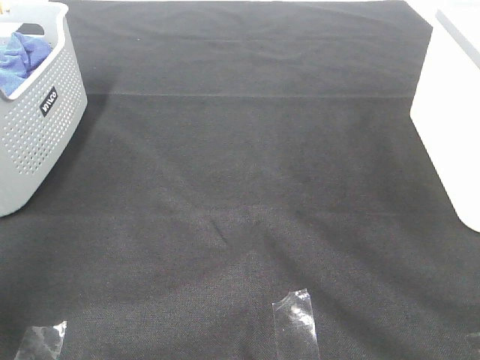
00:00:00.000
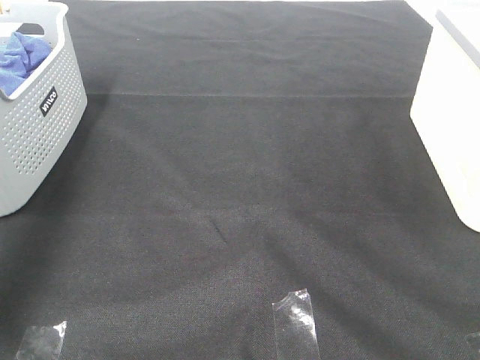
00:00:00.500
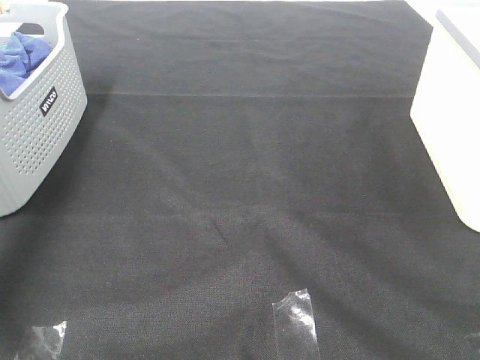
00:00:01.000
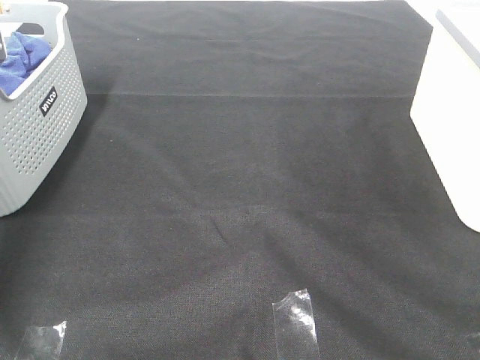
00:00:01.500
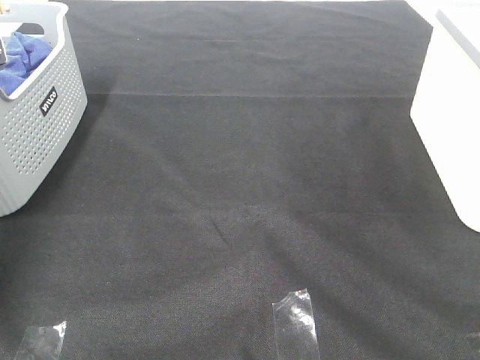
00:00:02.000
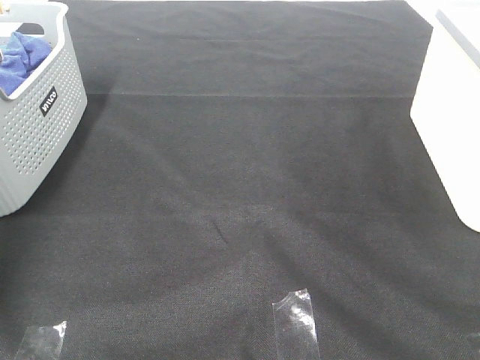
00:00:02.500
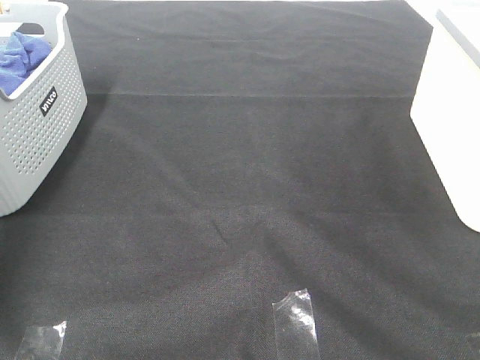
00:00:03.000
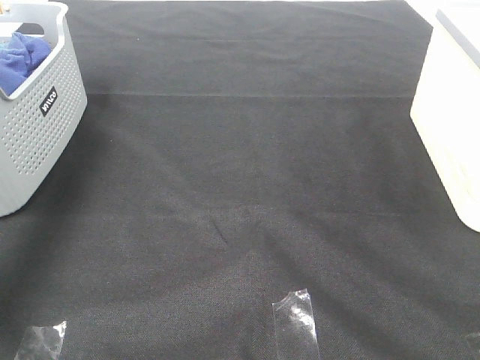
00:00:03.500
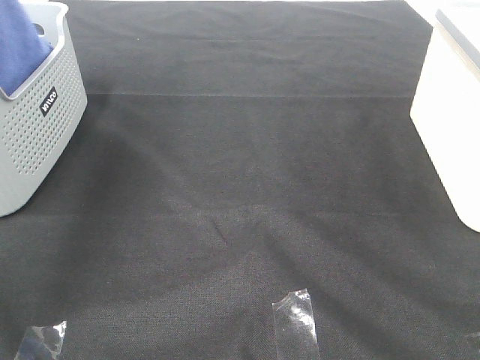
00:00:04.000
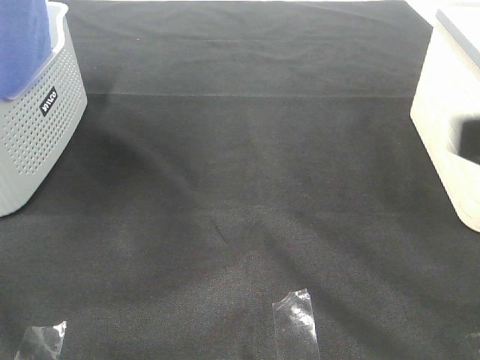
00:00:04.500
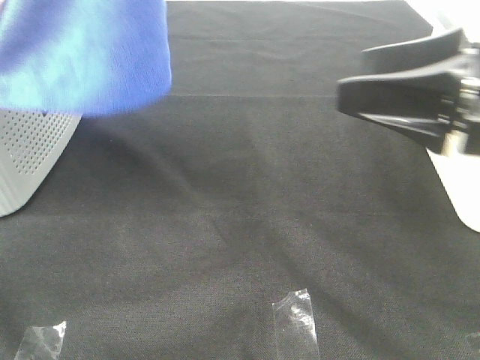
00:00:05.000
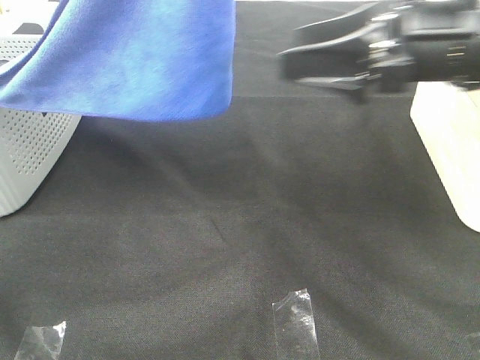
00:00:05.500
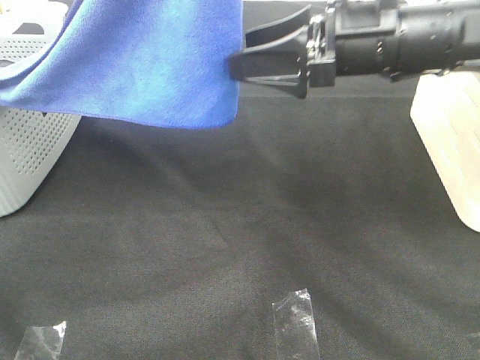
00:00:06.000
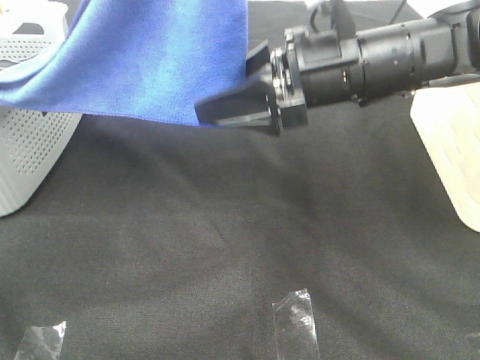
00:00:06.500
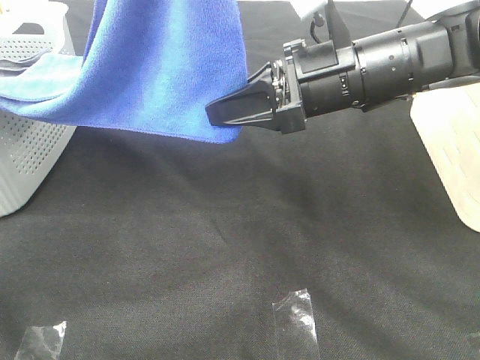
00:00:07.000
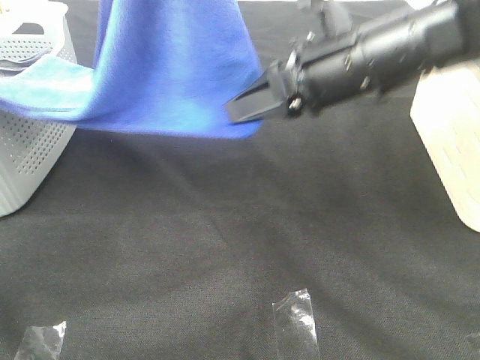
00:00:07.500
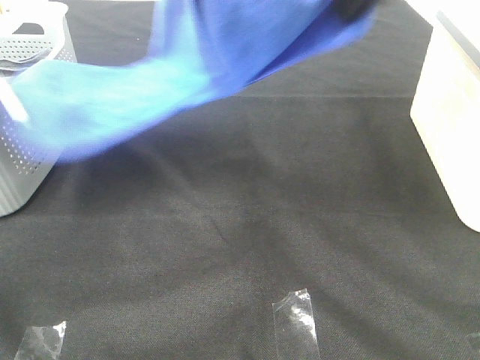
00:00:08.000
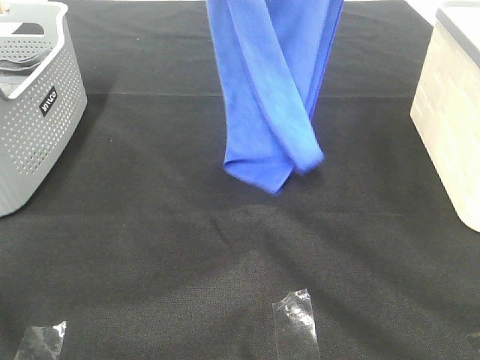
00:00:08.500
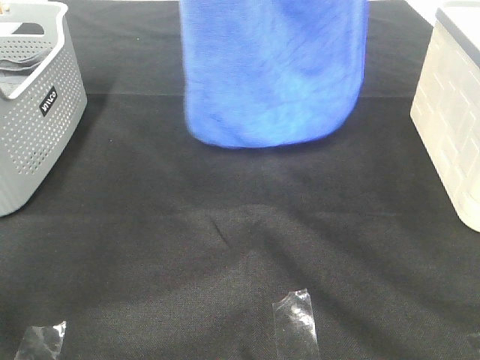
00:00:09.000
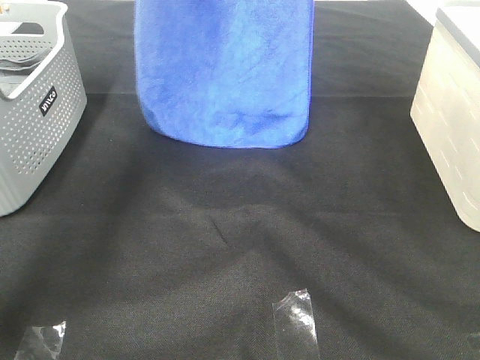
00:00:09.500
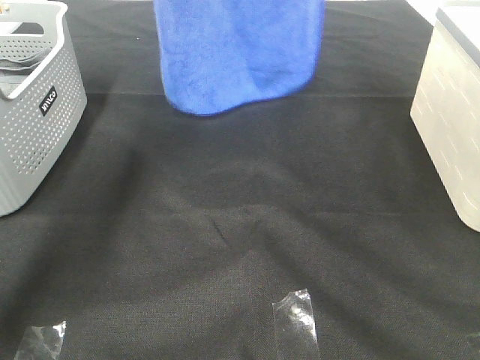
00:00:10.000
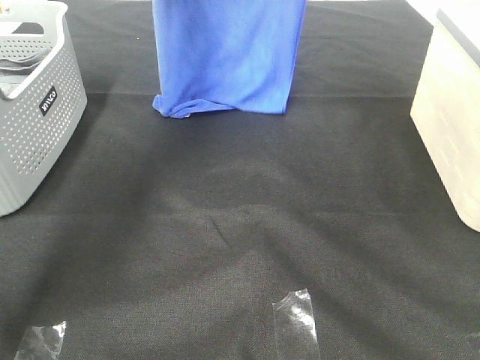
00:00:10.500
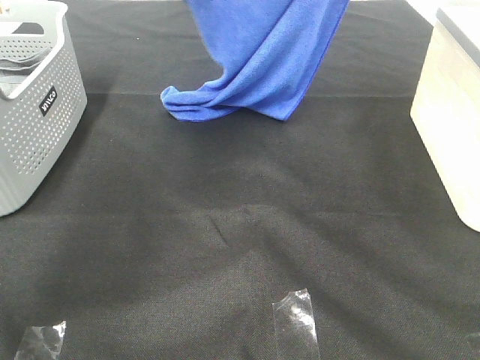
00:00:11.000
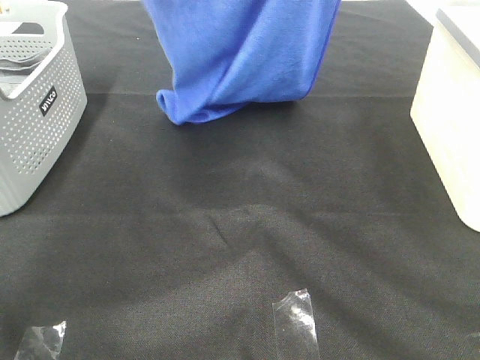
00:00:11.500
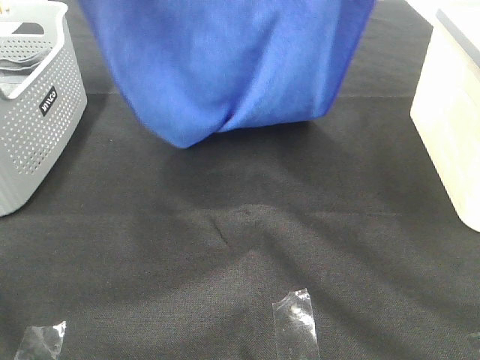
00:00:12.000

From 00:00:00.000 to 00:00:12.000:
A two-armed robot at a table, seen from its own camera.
Task of the whole recording: Remove the towel and place it.
Step, from 00:00:04.000 to 00:00:06.500: Right hand: grab a corner of the blue towel and straighten it.
Step, from 00:00:07.000 to 00:00:12.000: Left hand: spread the blue towel flat on the table.
Step, from 00:00:07.000 to 00:00:12.000: Right hand: spread the blue towel flat on the table.
From 00:00:00.000 to 00:00:02.000: The left gripper goes roughly 40 cm forward and downward, and closes up.
From 00:00:02.000 to 00:00:04.000: The left gripper heads upward, backward and to the right, covering approximately 40 cm, and closes.
From 00:00:04.000 to 00:00:06.000: The left gripper shifts approximately 20 cm to the right; the right gripper is displaced forward and to the left by some 35 cm.
From 00:00:06.000 to 00:00:08.000: The right gripper goes about 15 cm upward, and closes up.
From 00:00:08.000 to 00:00:10.000: The left gripper shifts about 25 cm forward, while the right gripper moves forward and upward, approximately 15 cm.
From 00:00:10.000 to 00:00:12.000: Both grippers move backward, about 20 cm.

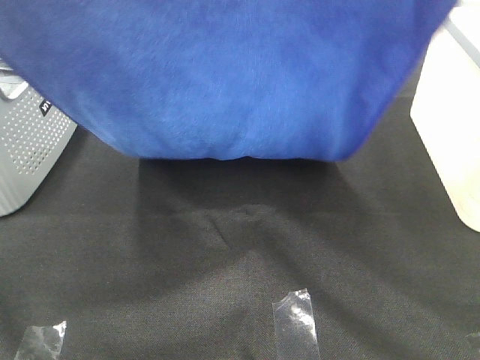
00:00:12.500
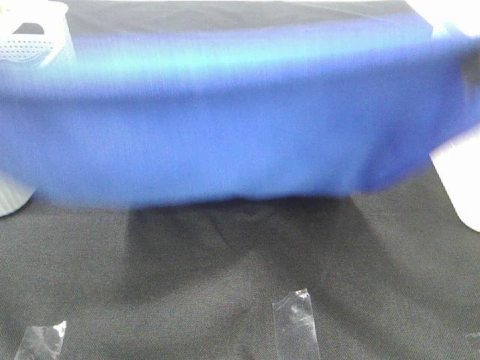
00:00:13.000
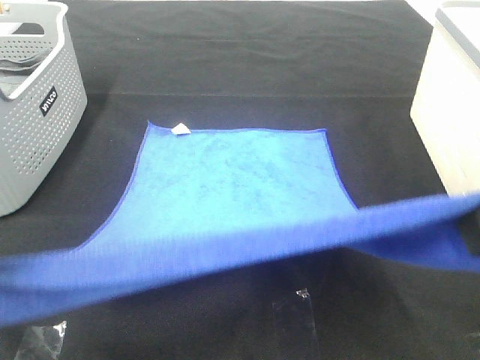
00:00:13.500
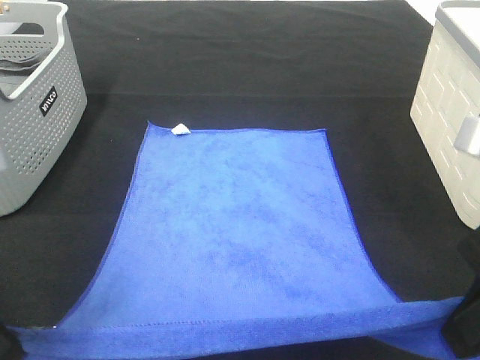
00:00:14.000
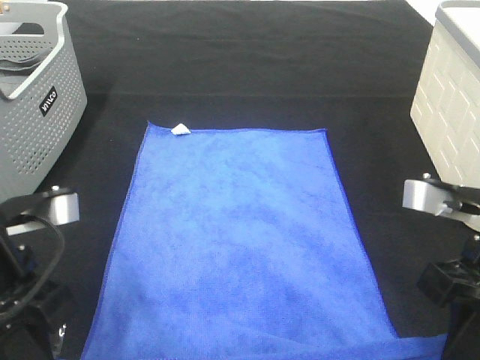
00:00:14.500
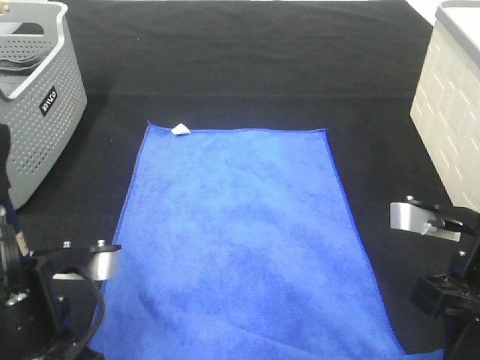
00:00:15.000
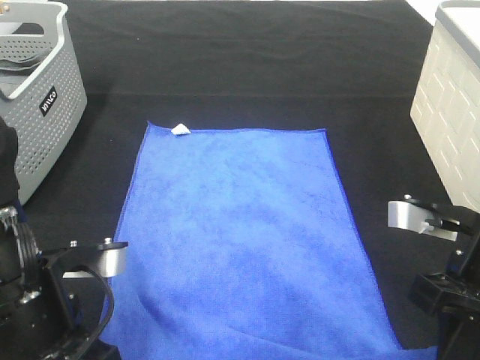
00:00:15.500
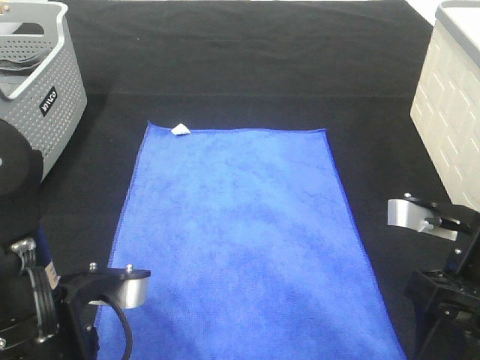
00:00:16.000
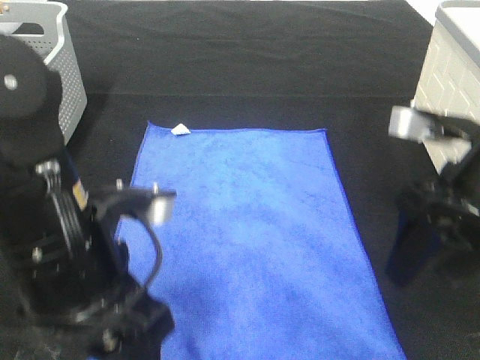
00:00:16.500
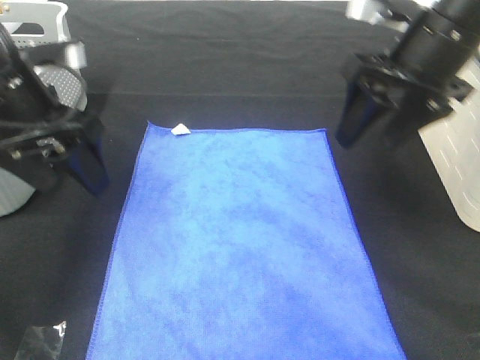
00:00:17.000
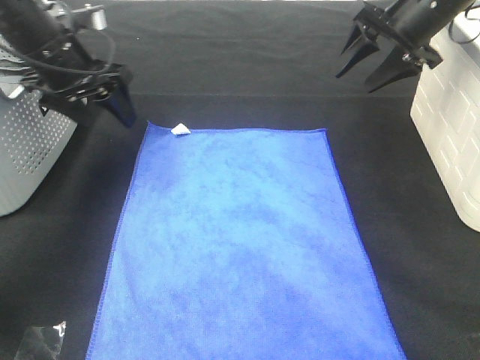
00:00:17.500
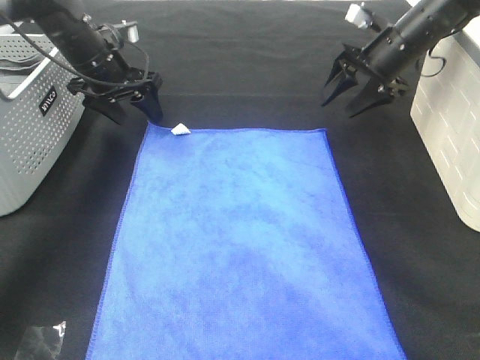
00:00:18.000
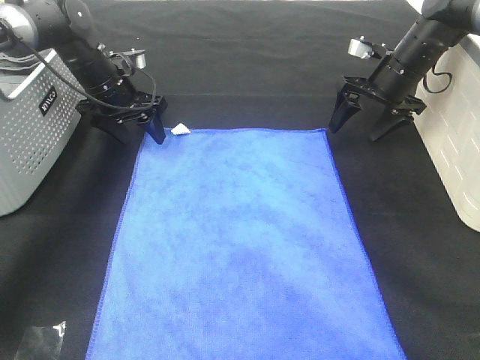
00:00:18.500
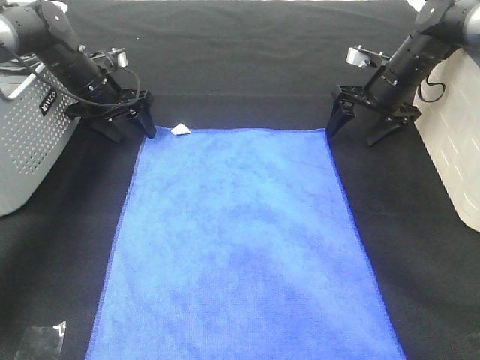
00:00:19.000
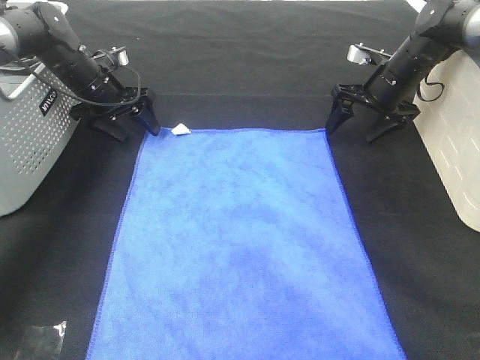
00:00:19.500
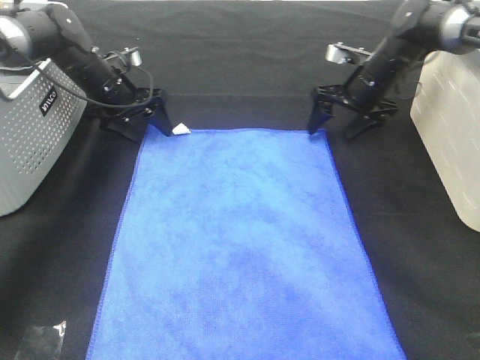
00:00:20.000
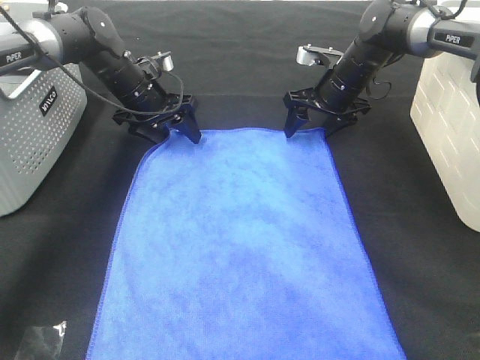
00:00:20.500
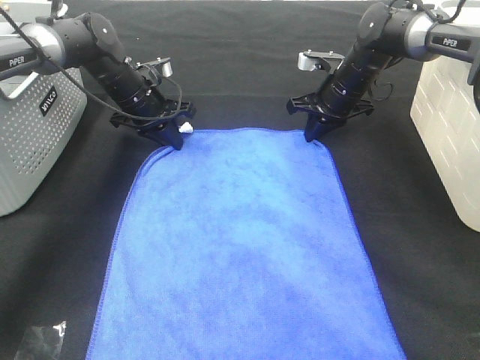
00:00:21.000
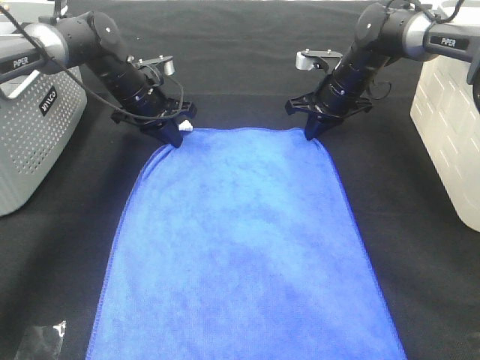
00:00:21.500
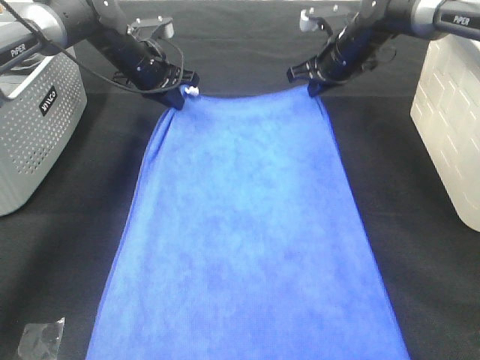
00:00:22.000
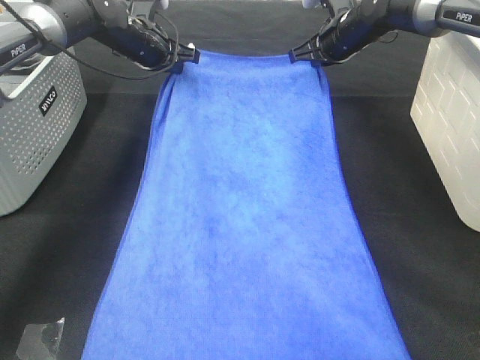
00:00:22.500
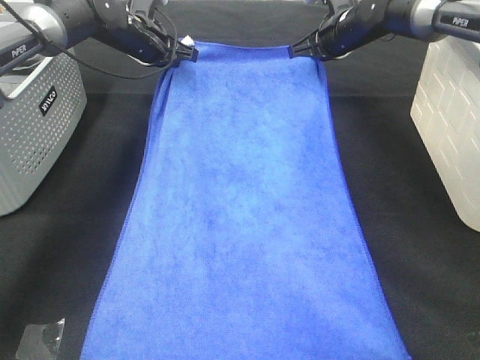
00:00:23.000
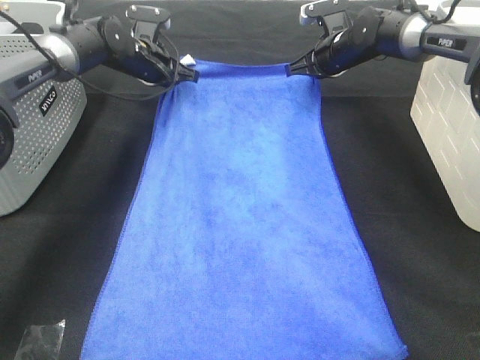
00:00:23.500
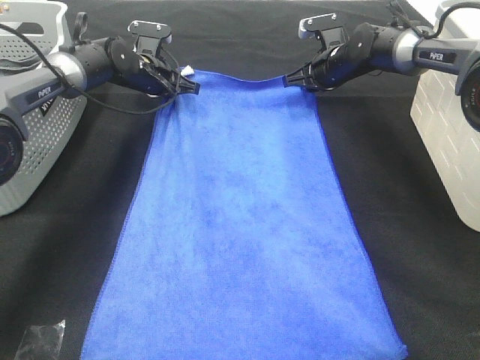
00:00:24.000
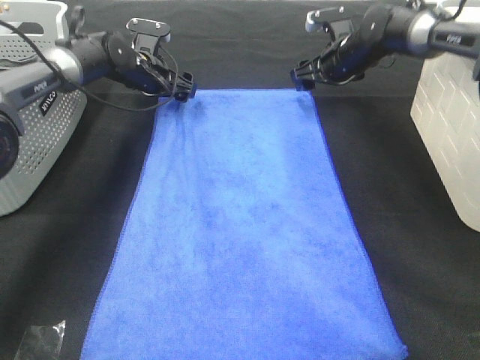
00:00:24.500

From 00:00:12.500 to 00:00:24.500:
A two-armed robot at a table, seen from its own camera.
Task of the whole recording: Remove the towel and place it.
Step, from 00:00:12.500 to 00:00:18.500: Left hand:adjust the blue towel.
Step, from 00:00:12.500 to 00:00:18.500: Right hand:adjust the blue towel.
From 00:00:12.500 to 00:00:14.500: The two grippers go approximately 25 cm downward.
From 00:00:14.500 to 00:00:16.500: The right gripper goes roughly 5 cm forward, and opens. The left gripper travels to the right by about 5 cm, and opens its fingers.
From 00:00:16.500 to 00:00:18.500: Both grippers travel together forward, about 30 cm.
From 00:00:18.500 to 00:00:20.500: The right gripper travels to the left by roughly 10 cm.
From 00:00:20.500 to 00:00:22.500: The right gripper moves upward, roughly 5 cm, and closes its fingers, while the left gripper travels upward and forward by approximately 10 cm, and closes its fingers.
From 00:00:22.500 to 00:00:24.500: The right gripper opens, while the left gripper moves downward, roughly 5 cm, and opens up.

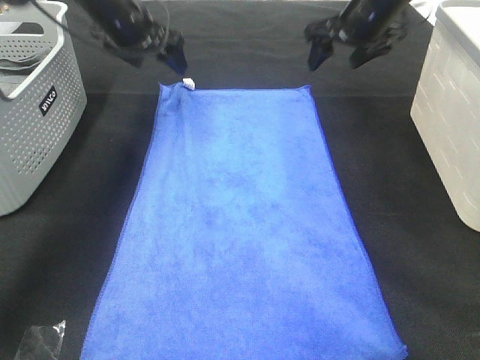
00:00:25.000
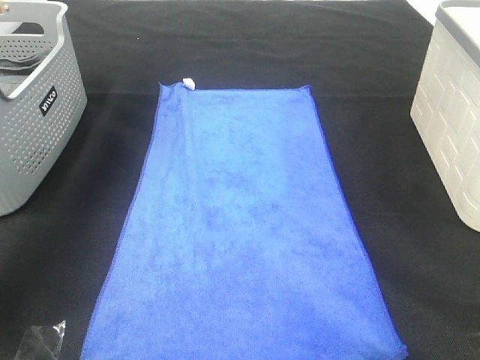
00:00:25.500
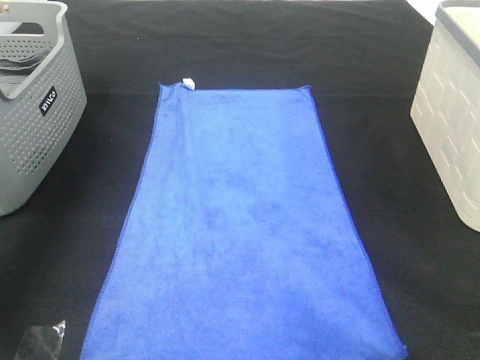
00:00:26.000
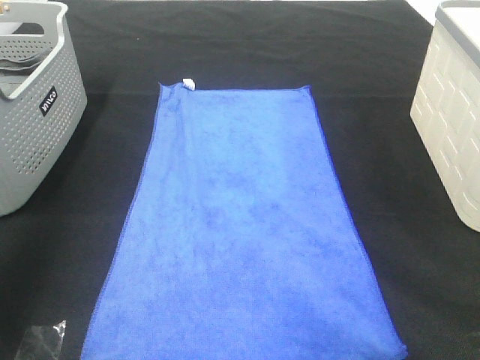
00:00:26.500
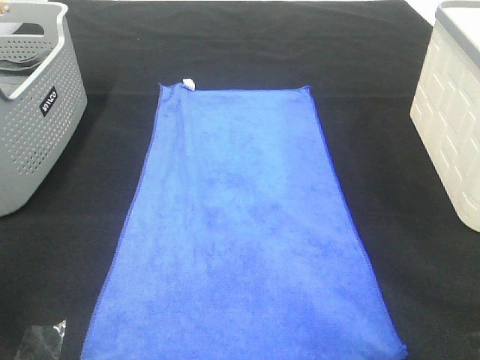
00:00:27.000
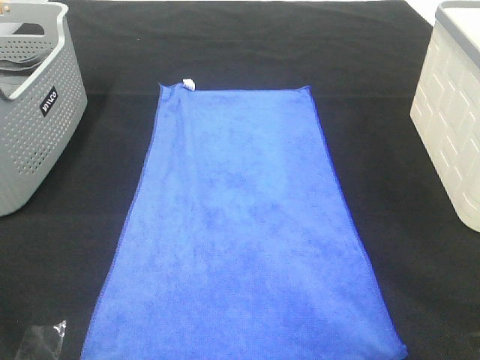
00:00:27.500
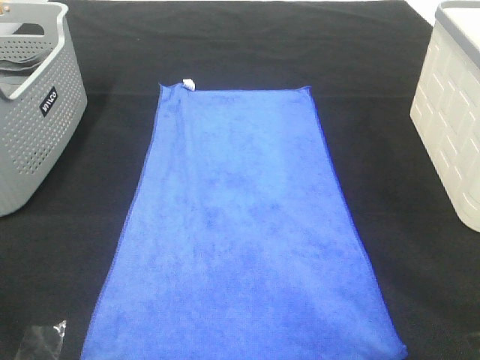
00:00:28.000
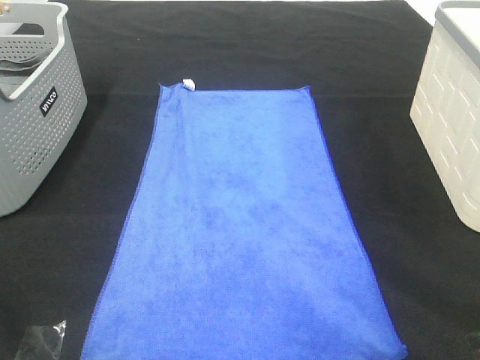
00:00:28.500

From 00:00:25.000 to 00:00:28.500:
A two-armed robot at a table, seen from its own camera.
Task of the whole recording: Remove the towel and place it.
From 00:00:25.000 to 00:00:27.000: The two grippers go some 50 cm backward.
